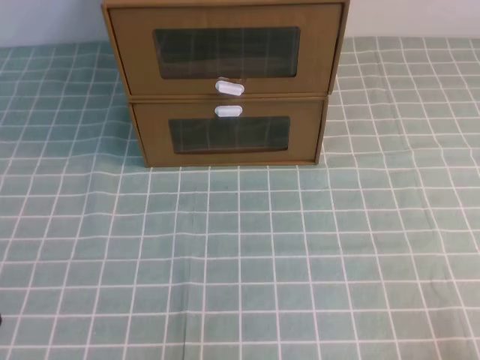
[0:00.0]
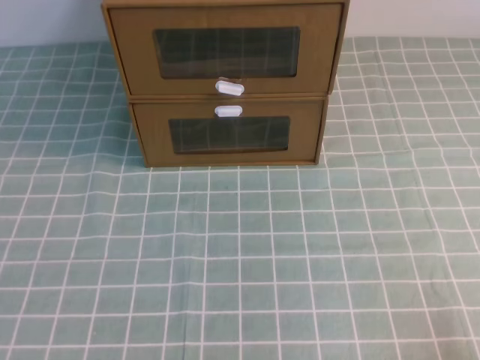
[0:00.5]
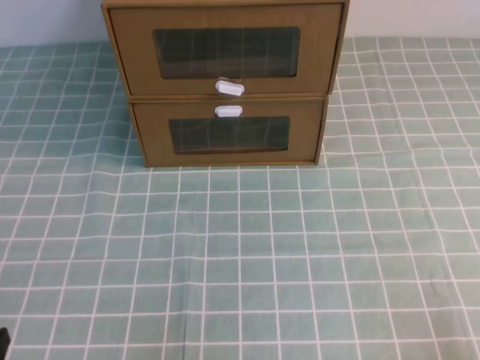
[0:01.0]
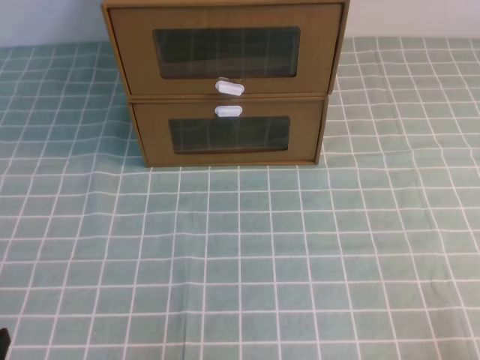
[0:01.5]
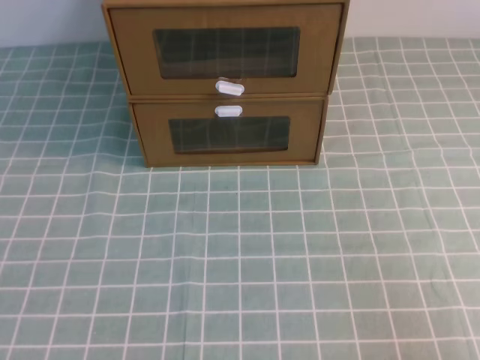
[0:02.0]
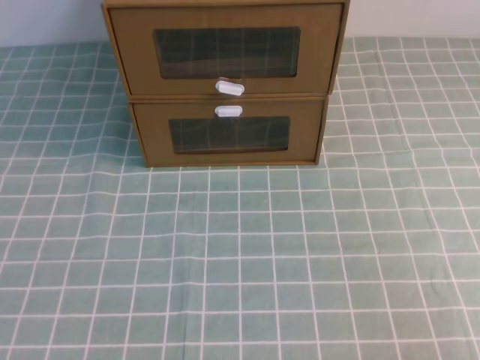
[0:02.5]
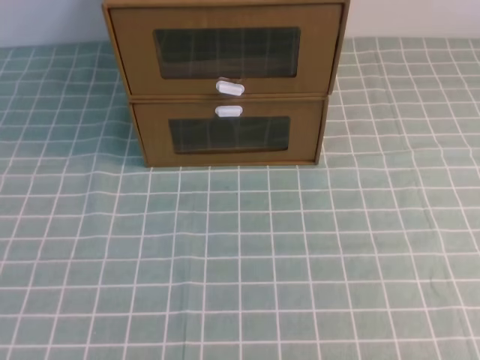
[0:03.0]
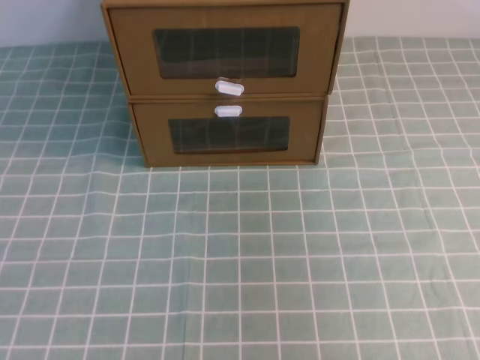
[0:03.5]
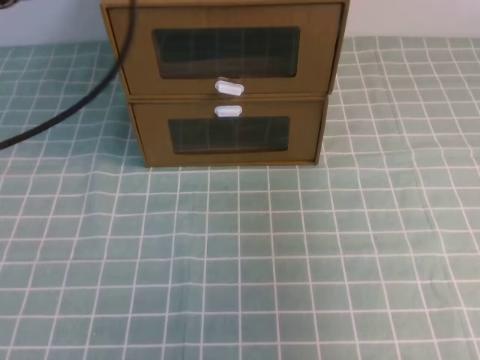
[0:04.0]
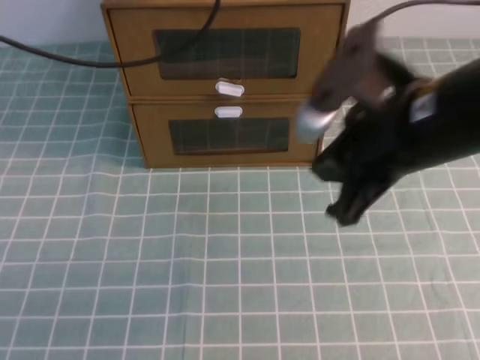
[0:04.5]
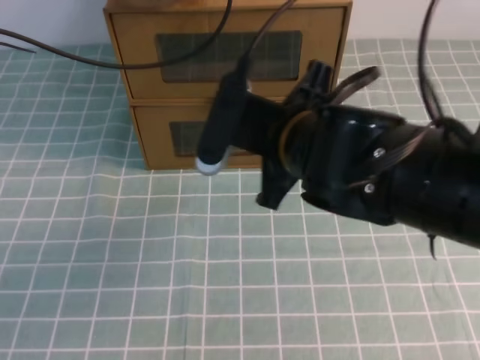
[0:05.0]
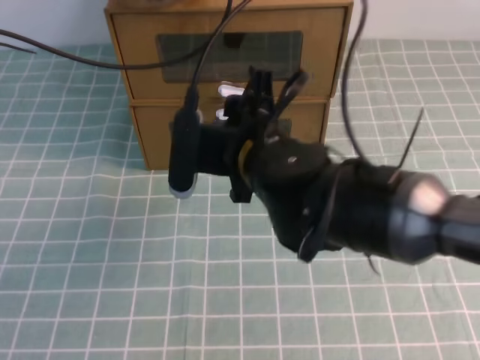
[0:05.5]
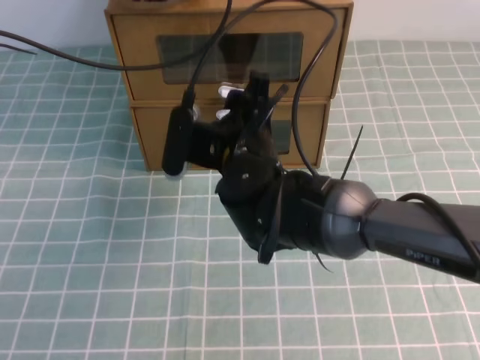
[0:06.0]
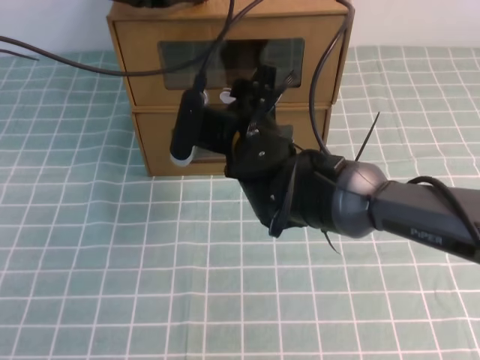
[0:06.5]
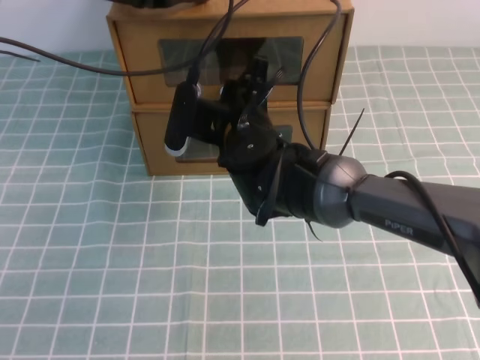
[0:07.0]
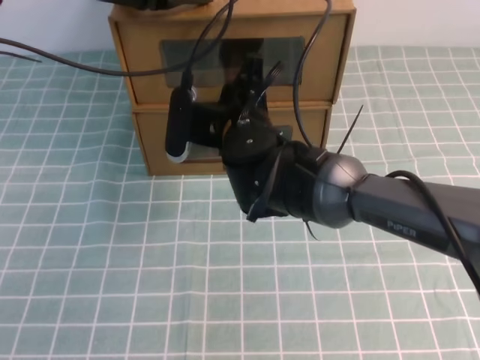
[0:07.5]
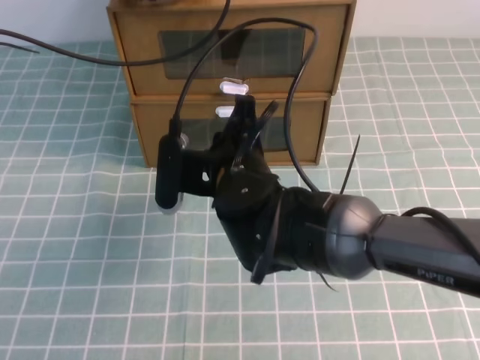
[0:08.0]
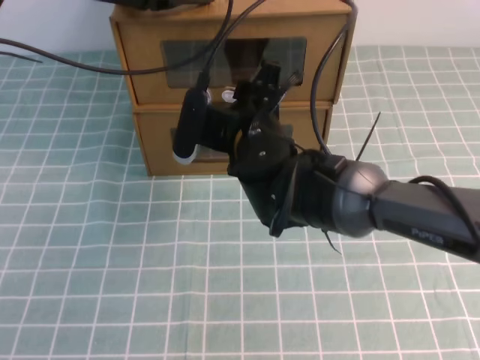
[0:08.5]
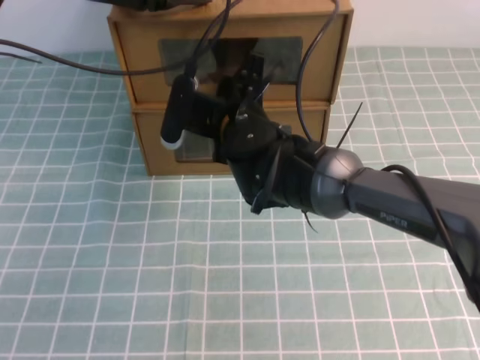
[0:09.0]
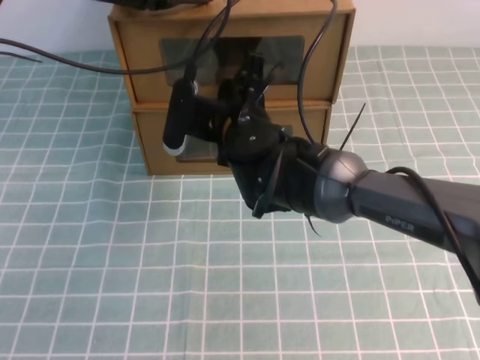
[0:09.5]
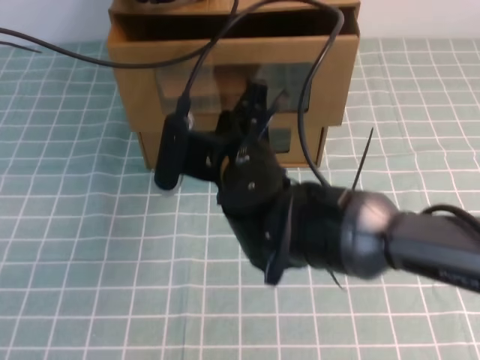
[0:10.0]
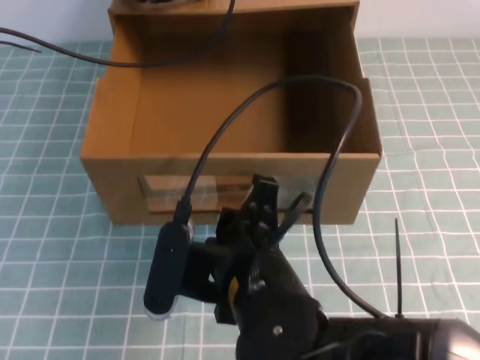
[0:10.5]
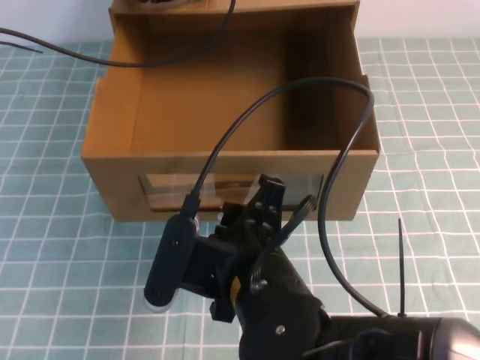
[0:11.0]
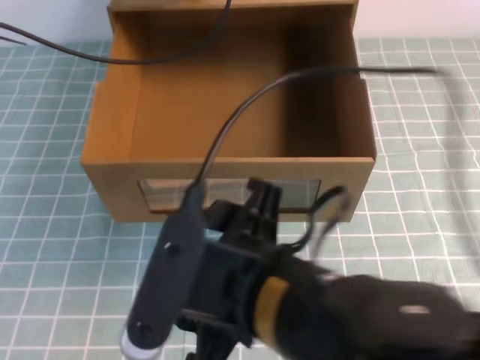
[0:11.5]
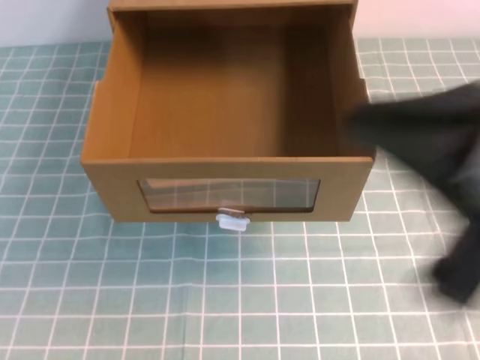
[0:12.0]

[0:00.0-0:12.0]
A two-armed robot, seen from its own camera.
Task of the whole recording: open the shoebox on the cyan tablecloth.
0:02.0 to 0:04.0: The left gripper is displaced forward and upward by some 30 cm. The right gripper goes roughly 20 cm upward and forward.
0:04.0 to 0:06.0: The left gripper goes approximately 20 cm forward, downward and to the right. Meanwhile the right gripper shifts roughly 35 cm to the left, downward and forward, and opens up.
0:06.0 to 0:08.0: The right gripper closes its fingers.
0:08.0 to 0:10.0: The right gripper reaches roughly 5 cm forward, then returns, and opens, then closes once more.
0:10.0 to 0:12.0: The right gripper shifts roughly 30 cm backward, upward and to the right, and opens and closes again. Meanwhile the left gripper shifts approximately 25 cm upward and backward.

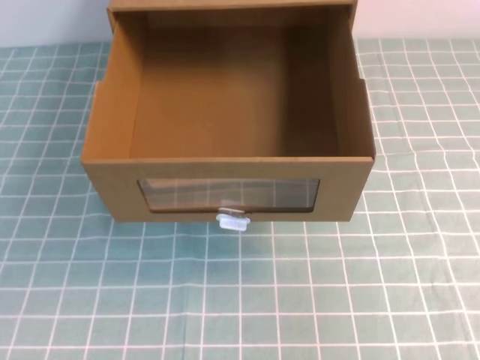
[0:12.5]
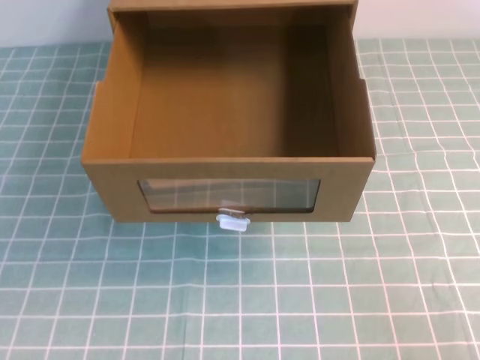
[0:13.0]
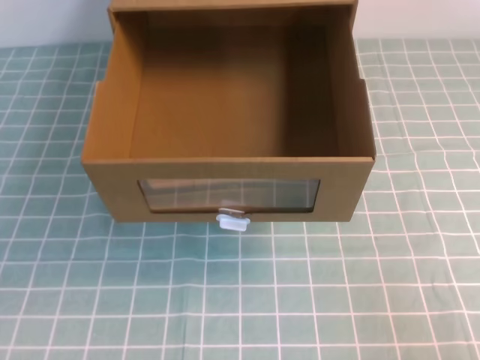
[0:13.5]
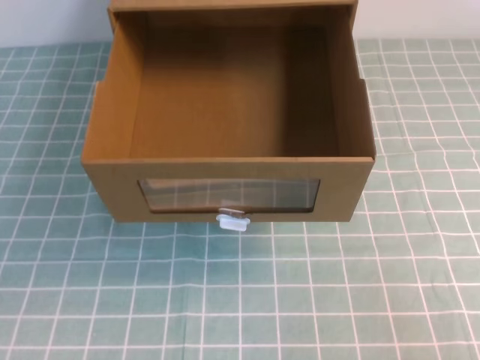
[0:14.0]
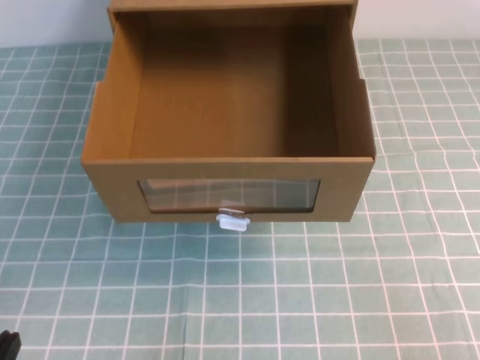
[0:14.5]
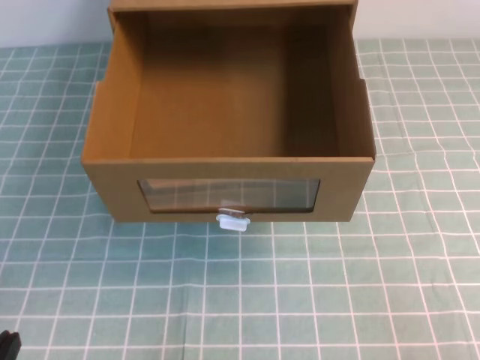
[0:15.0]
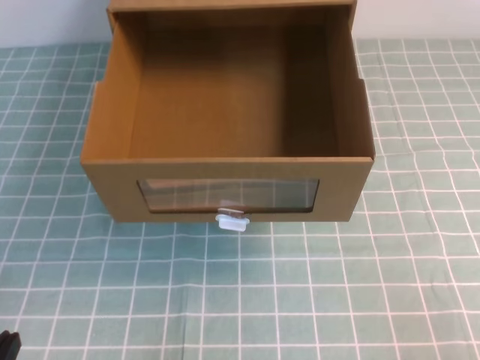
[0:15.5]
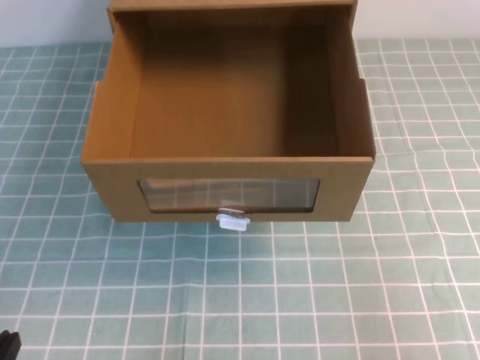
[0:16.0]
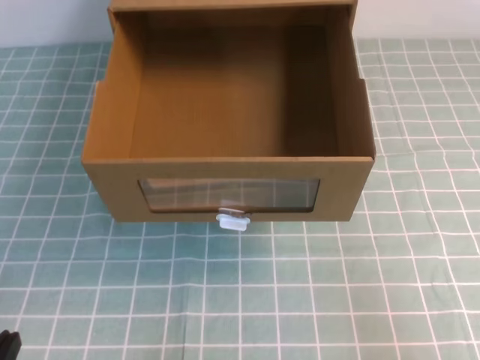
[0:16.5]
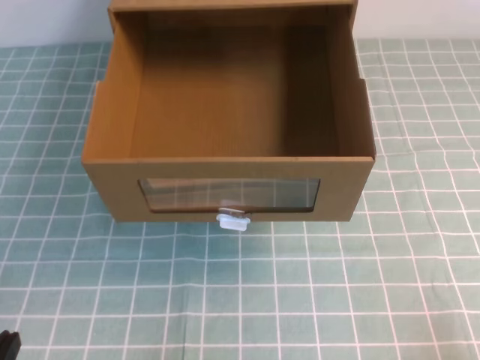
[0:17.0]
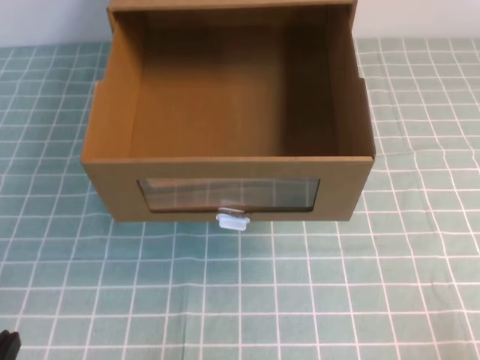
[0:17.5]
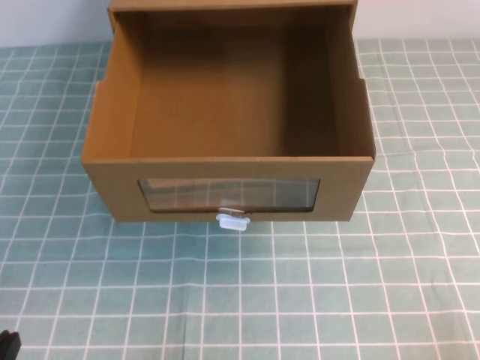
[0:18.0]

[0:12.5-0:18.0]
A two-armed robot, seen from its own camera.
Task of the whole recording: open the shoebox on the cyan tablecloth.
Step, 0:12.5 to 0:18.0: Open the shoe box.
0:12.5 to 0:14.5: The left gripper heads downward, covering about 35 cm, while the right gripper heads downward, covering about 10 cm.

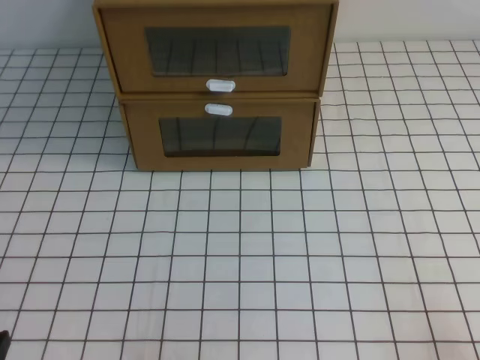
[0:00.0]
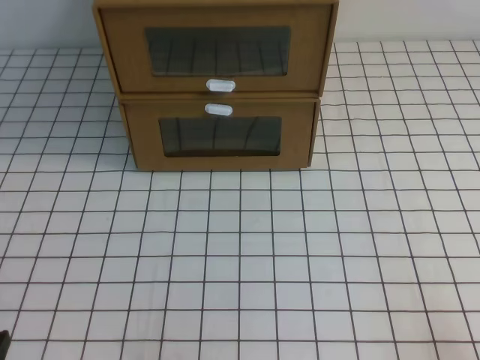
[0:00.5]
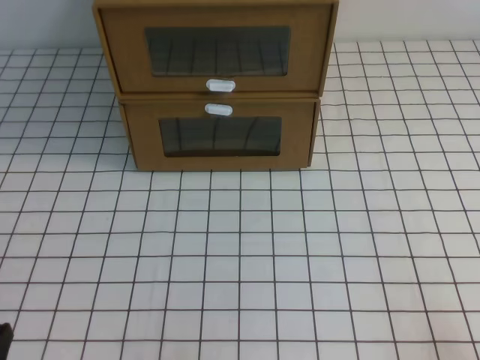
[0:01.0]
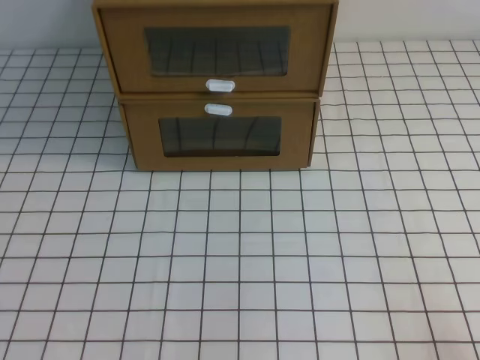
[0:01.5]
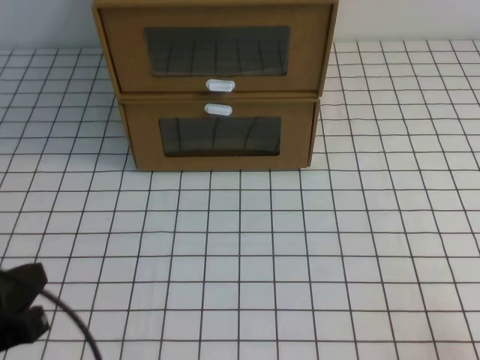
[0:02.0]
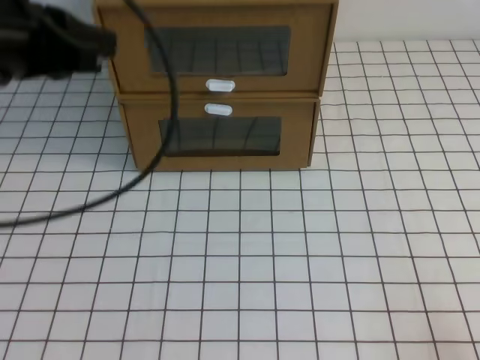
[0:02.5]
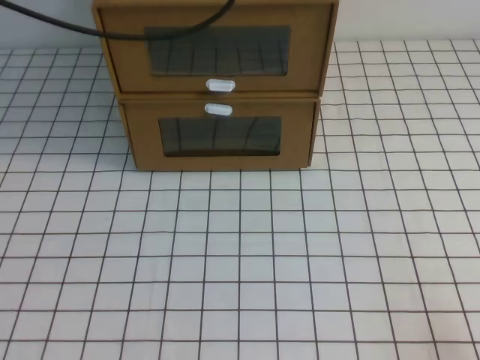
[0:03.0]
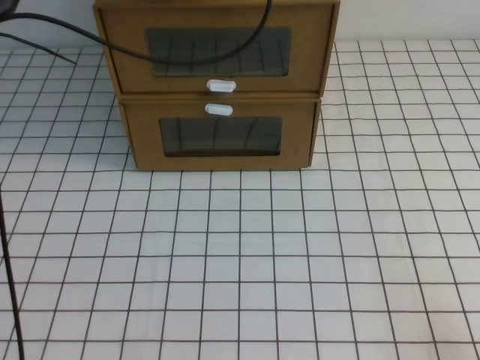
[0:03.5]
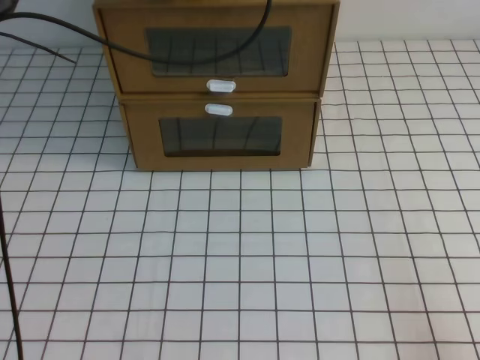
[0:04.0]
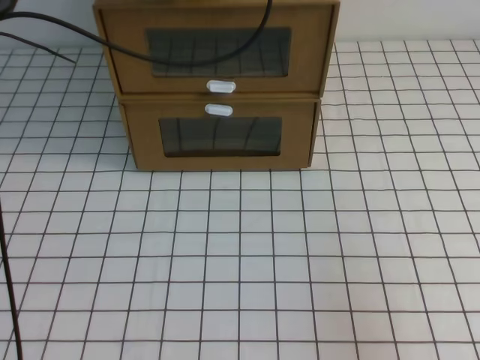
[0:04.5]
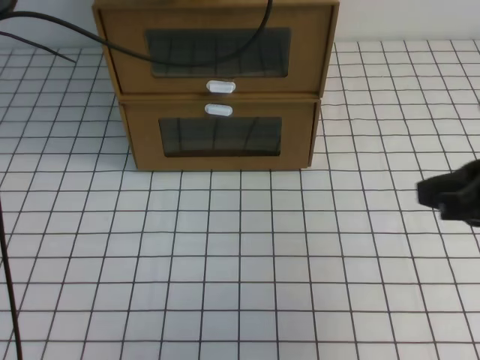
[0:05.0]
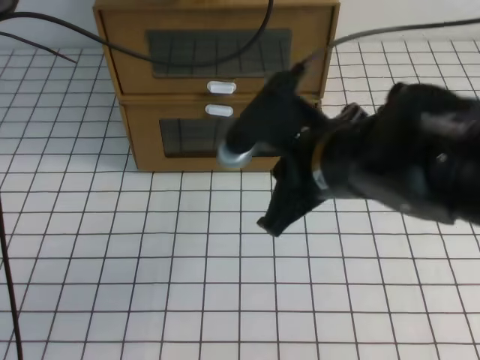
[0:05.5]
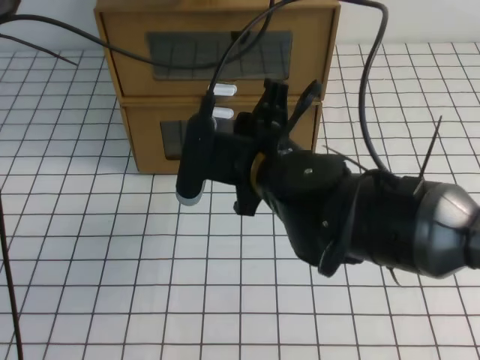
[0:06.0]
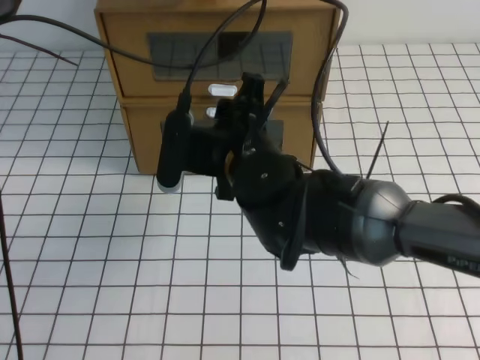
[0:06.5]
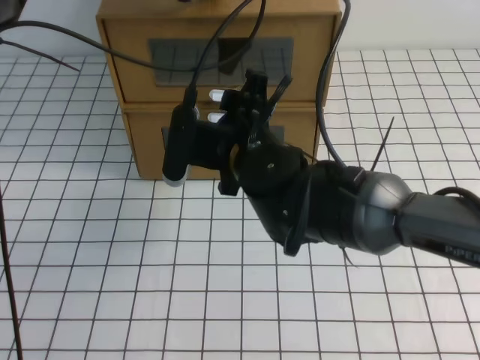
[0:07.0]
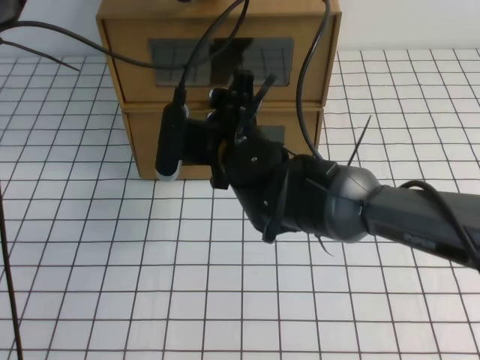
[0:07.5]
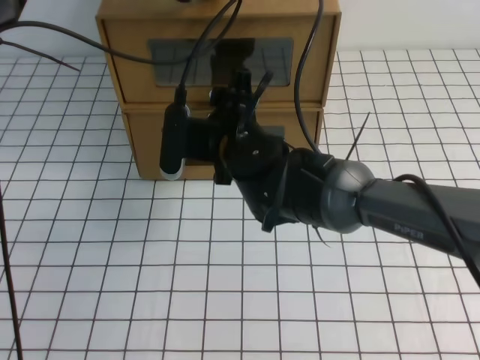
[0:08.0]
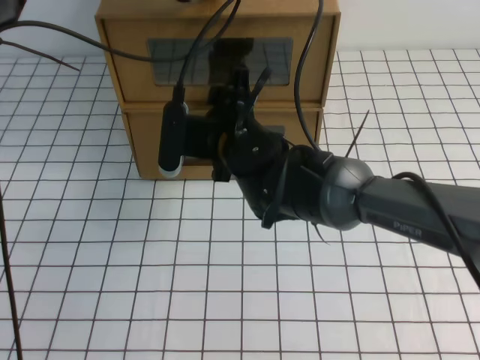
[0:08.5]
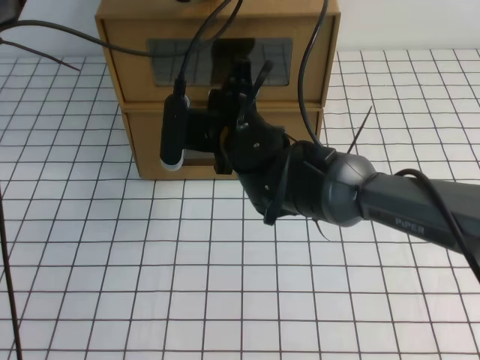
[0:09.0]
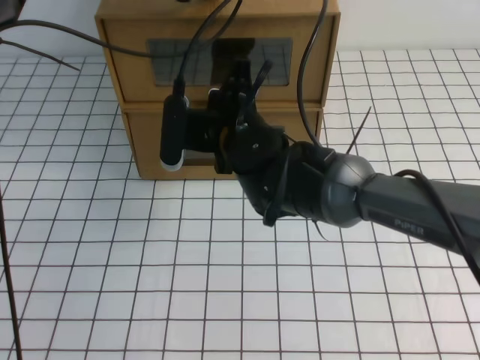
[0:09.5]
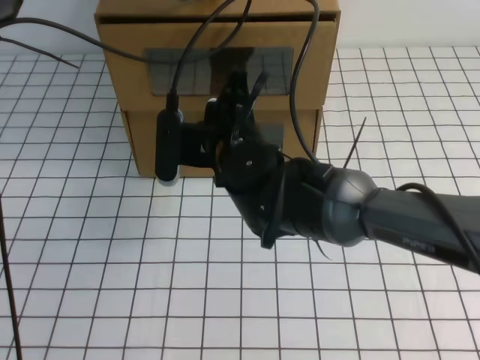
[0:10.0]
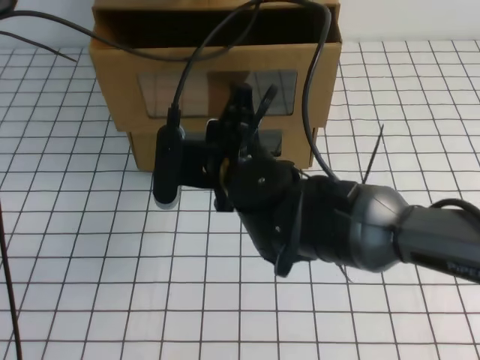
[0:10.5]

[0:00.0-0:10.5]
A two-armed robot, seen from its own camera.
Task of the whole recording: open the shoebox on the white tablecloth.
0:02.0 to 0:04.0: The left gripper is displaced forward and upward by roughly 40 cm.
0:04.0 to 0:06.5: The right gripper shifts approximately 40 cm to the left and forward, and opens.
0:06.5 to 0:08.5: The right gripper heads forward, covering approximately 5 cm.
0:08.5 to 0:10.5: The right gripper goes approximately 5 cm backward, and closes its fingers.
